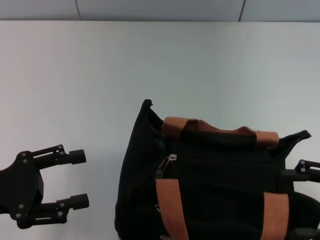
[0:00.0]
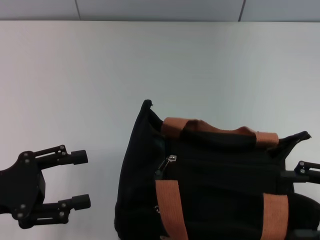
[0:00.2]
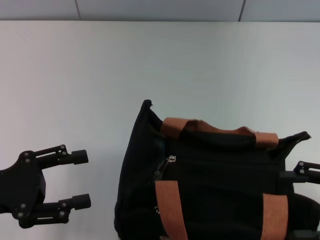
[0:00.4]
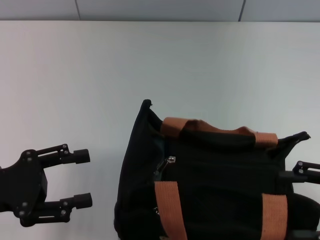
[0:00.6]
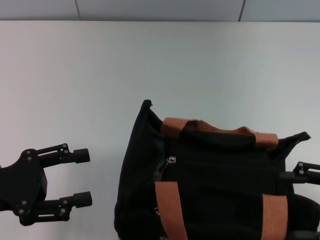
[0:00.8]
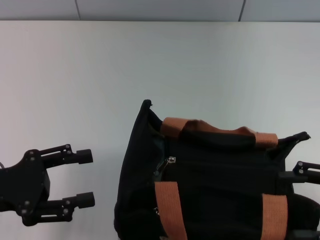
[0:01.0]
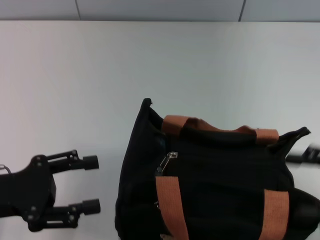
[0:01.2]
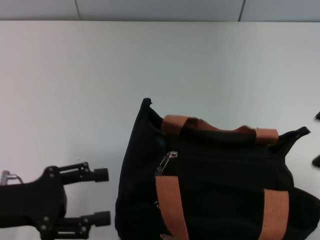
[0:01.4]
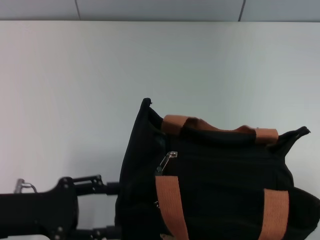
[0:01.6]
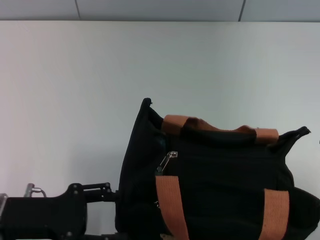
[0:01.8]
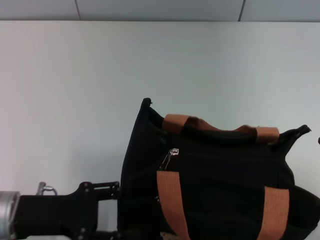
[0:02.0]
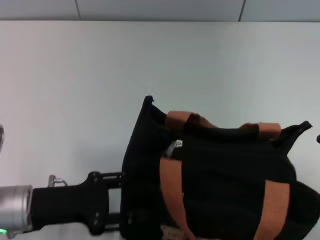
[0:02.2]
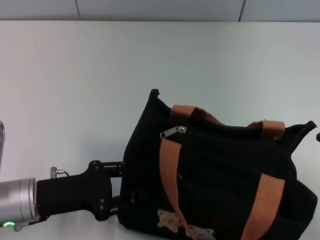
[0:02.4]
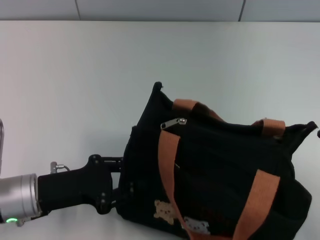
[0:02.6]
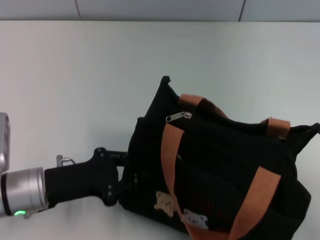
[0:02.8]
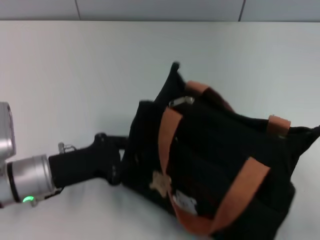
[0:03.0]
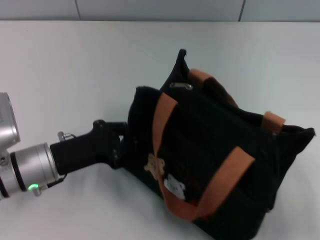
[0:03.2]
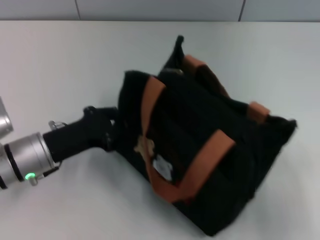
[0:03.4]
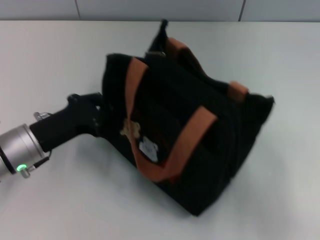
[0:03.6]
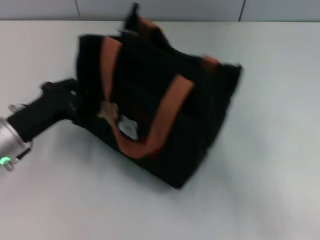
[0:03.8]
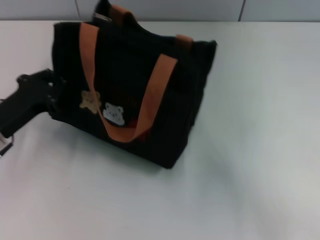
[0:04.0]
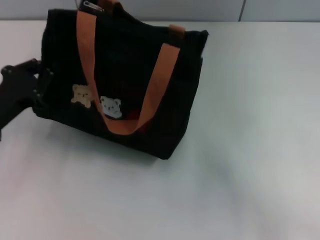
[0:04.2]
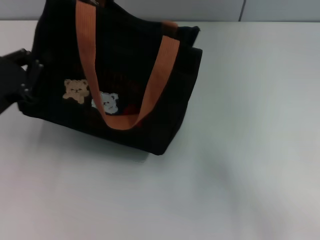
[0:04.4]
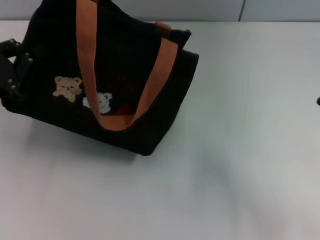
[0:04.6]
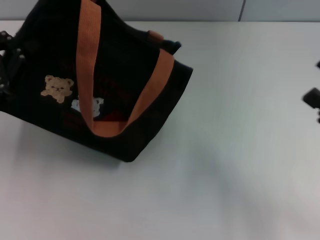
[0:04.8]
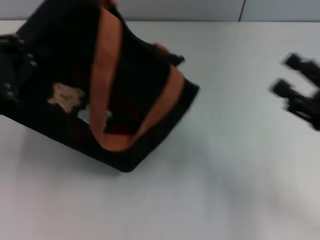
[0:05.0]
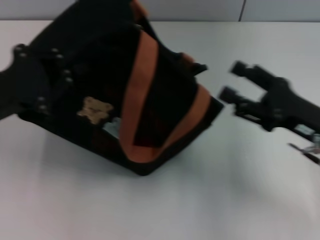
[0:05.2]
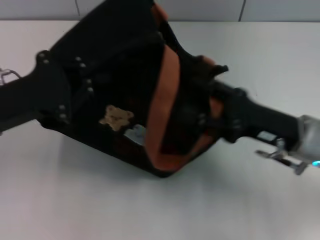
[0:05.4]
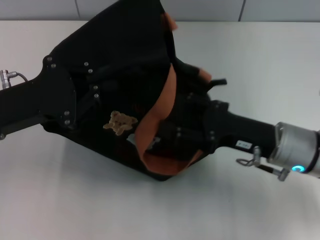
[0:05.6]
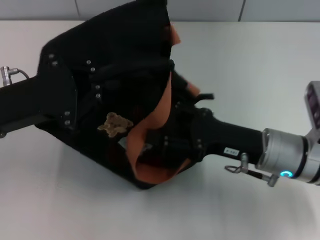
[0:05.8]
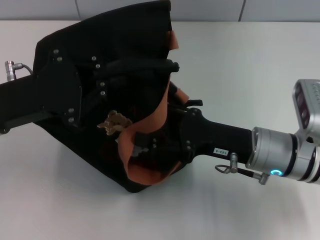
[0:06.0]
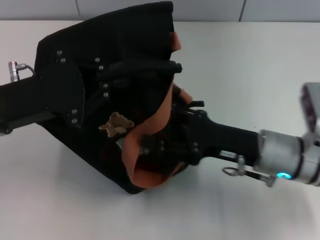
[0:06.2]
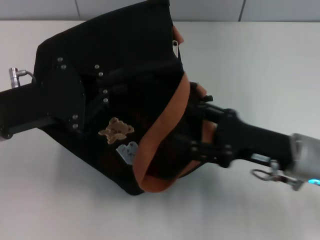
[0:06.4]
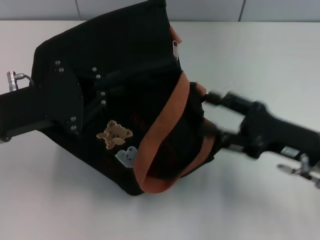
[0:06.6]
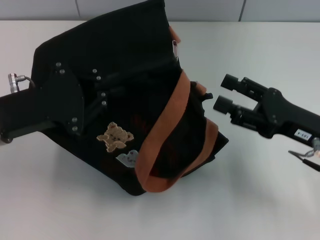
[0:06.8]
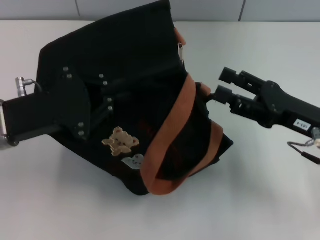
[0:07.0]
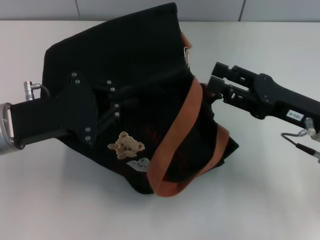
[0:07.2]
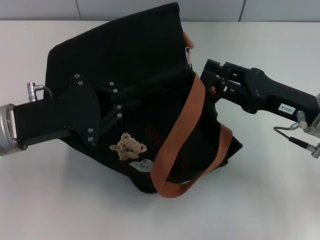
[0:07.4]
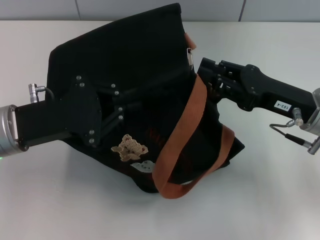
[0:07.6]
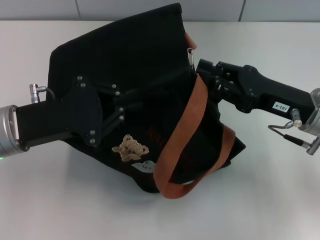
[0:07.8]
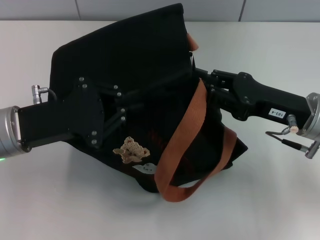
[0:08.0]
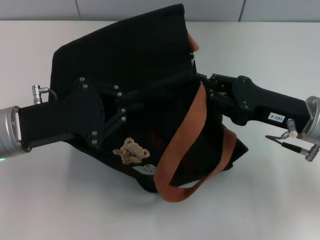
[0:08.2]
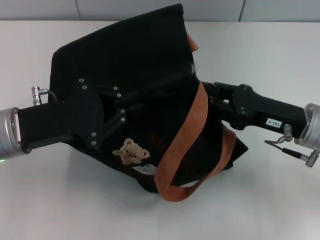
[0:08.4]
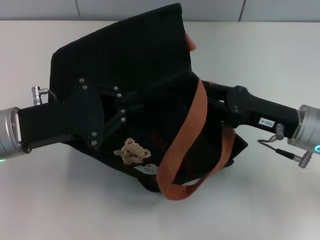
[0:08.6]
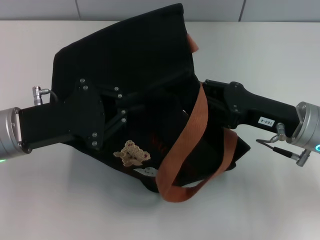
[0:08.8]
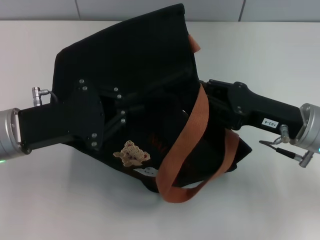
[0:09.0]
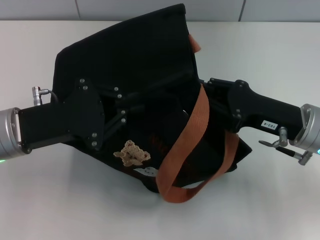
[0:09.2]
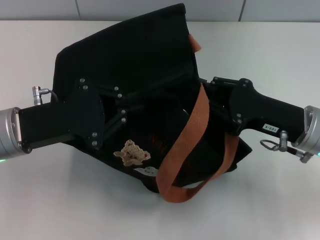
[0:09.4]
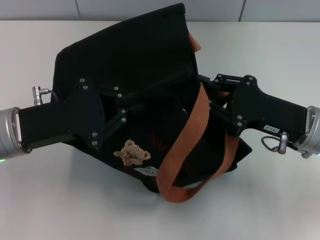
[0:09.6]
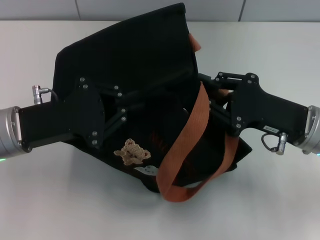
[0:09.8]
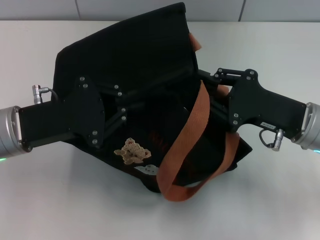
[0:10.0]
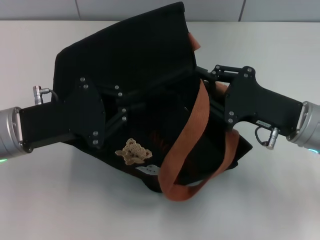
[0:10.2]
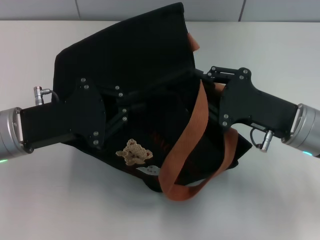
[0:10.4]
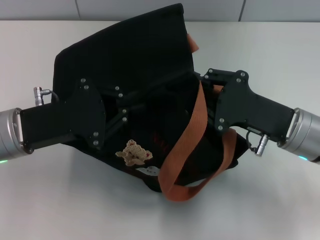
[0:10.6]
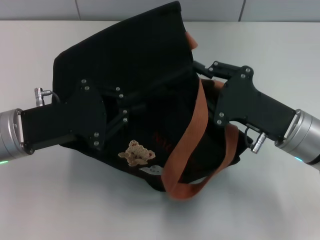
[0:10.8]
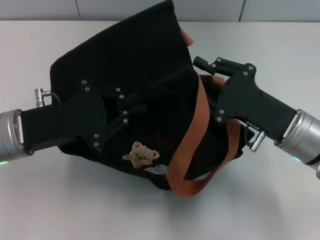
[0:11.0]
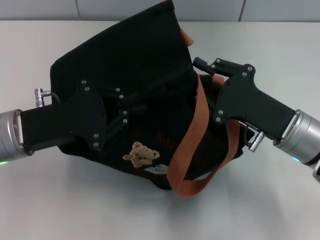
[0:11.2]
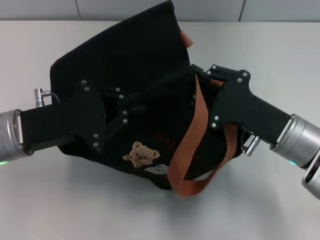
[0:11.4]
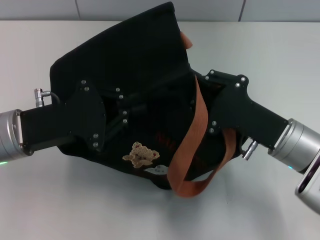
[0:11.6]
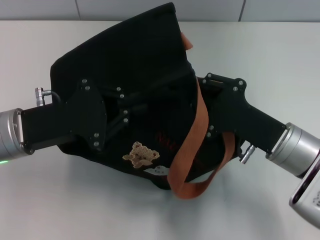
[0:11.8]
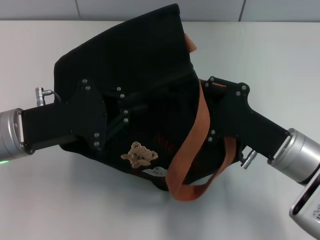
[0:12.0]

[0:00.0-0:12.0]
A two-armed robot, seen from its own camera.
0:01.6 to 0:03.0: The left gripper moves approximately 5 cm, and closes its fingers.
0:03.0 to 0:04.4: The left gripper moves to the left, approximately 10 cm.
0:04.4 to 0:06.0: The right gripper is displaced to the left by about 20 cm, while the left gripper shifts some 10 cm upward and to the right.
0:06.0 to 0:07.6: The right gripper moves to the right, some 5 cm, and closes up.
0:07.6 to 0:09.0: The grippers make only small movements.

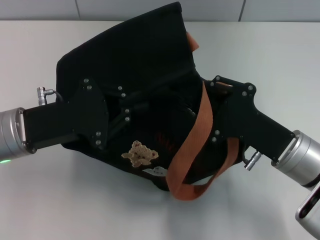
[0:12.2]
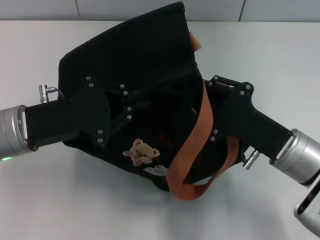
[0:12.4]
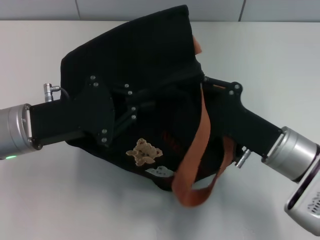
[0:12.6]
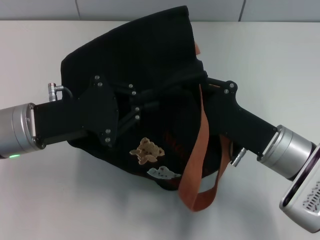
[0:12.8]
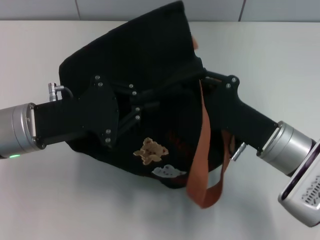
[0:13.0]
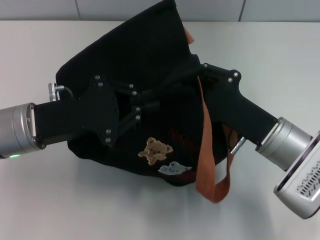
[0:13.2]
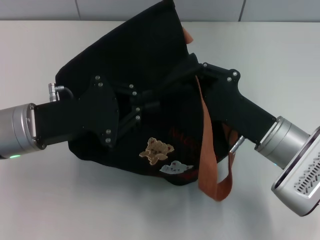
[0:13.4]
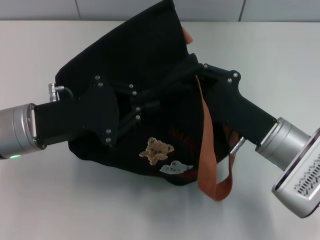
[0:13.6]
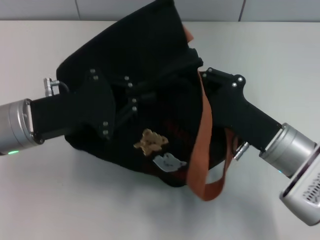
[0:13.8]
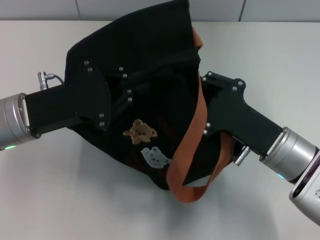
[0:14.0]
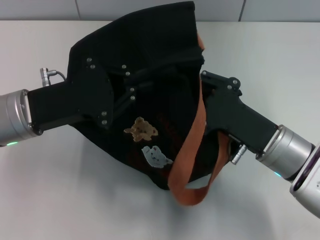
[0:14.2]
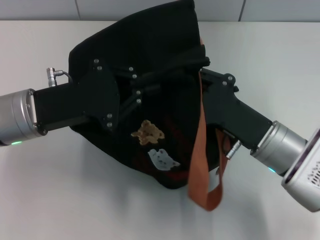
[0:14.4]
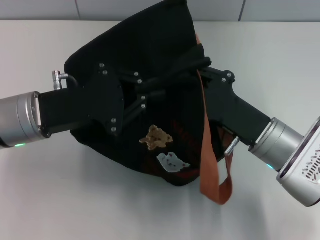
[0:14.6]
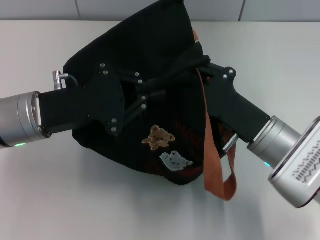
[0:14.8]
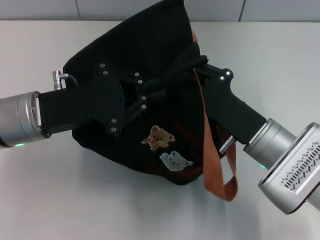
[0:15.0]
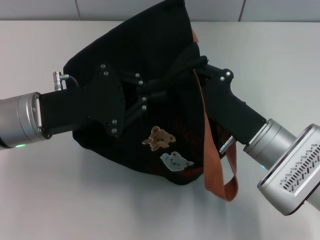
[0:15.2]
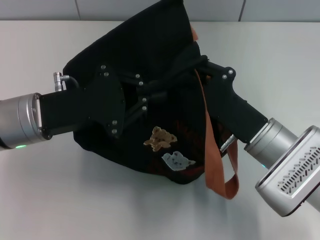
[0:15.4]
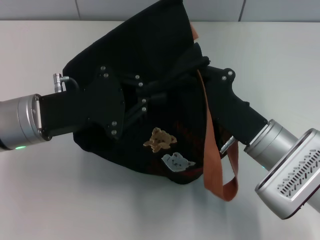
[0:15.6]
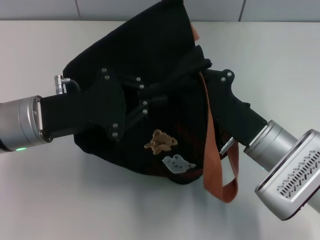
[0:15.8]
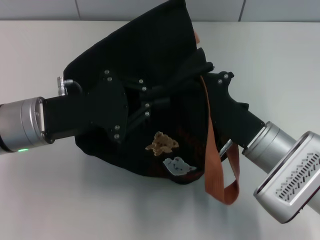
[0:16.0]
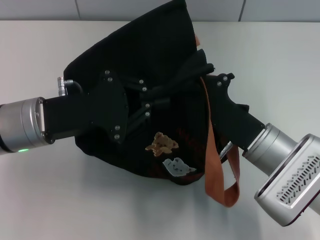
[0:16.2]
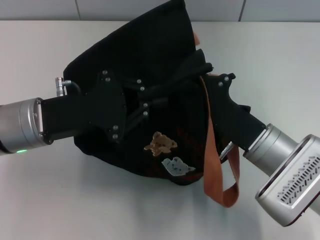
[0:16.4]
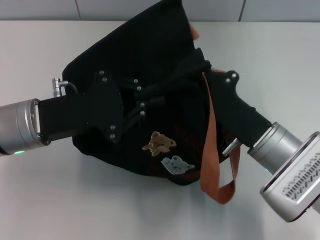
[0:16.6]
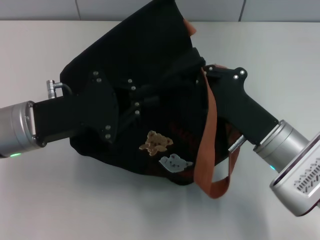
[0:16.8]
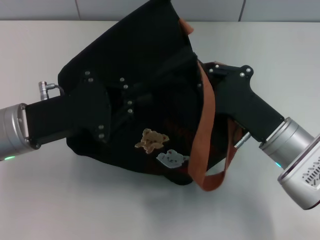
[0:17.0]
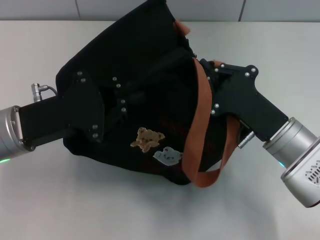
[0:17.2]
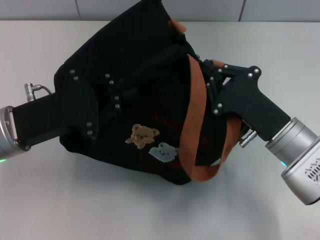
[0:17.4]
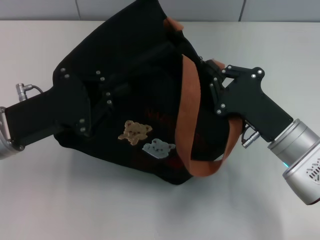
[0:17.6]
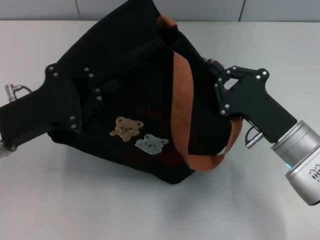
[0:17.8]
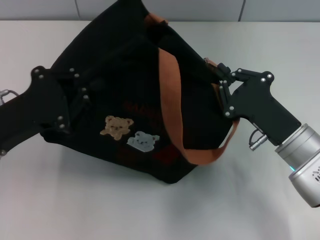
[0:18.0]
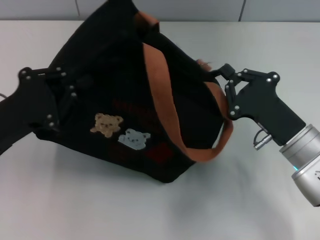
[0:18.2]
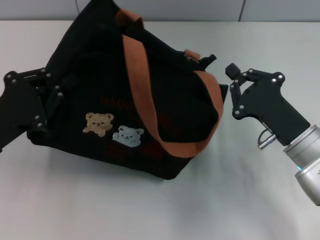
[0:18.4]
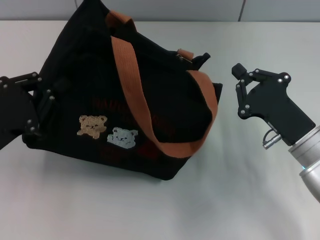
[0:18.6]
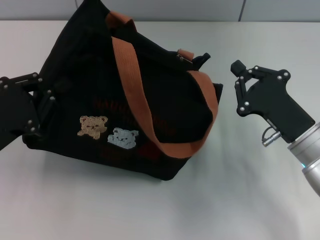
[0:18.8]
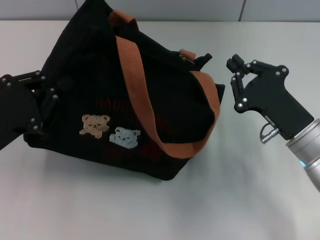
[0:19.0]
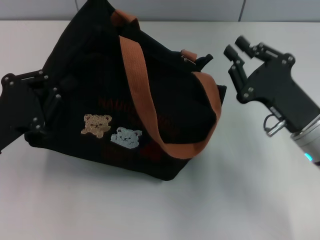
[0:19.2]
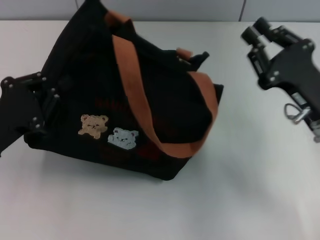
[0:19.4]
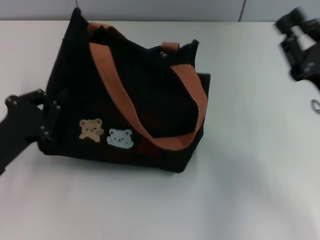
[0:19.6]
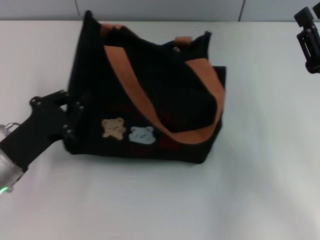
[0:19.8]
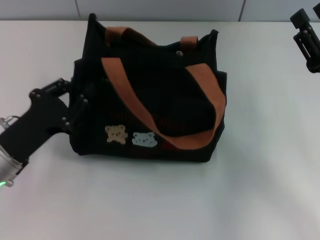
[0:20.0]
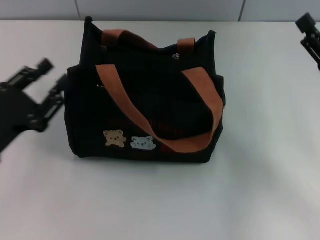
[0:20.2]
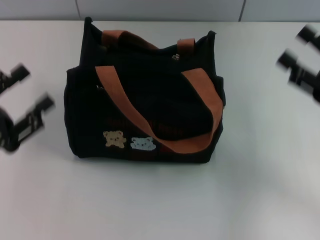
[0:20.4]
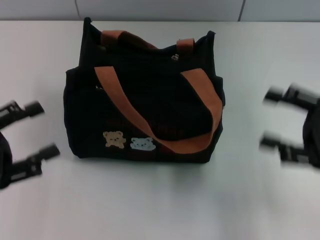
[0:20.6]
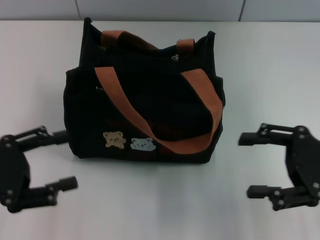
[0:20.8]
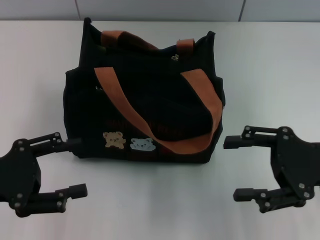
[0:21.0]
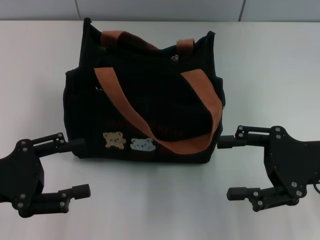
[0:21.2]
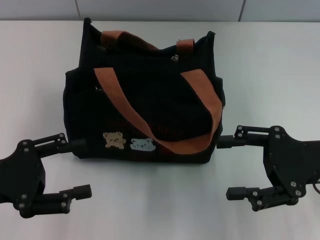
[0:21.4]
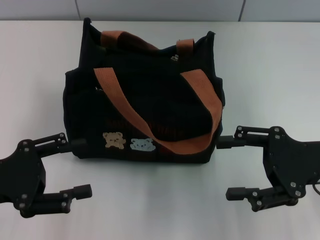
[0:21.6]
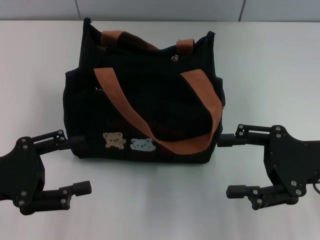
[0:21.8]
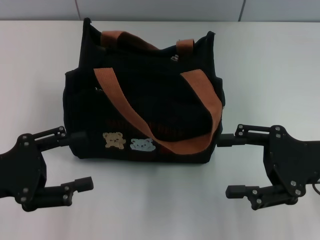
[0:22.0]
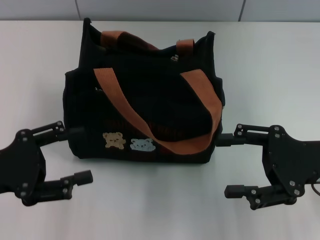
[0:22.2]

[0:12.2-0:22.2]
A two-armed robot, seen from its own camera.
Step, 0:12.2 to 0:18.6: Pull open the zipper with your right hand.
Step, 0:18.8 to 0:20.0: Grab the bag with your left hand.
0:12.2 to 0:15.0: The grippers stay close to where they were, moving slightly.
0:15.0 to 0:16.4: The two grippers keep their place.
0:16.4 to 0:18.0: The left gripper moves to the left, some 5 cm.
0:18.0 to 0:19.4: The right gripper changes place by some 5 cm.
0:19.4 to 0:20.8: The left gripper changes place by about 5 cm, and opens up. The right gripper moves to the right, roughly 5 cm, and opens up.
0:20.8 to 0:22.2: The grippers move only a little.
